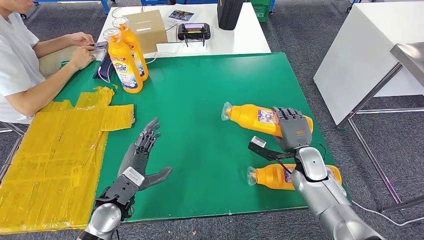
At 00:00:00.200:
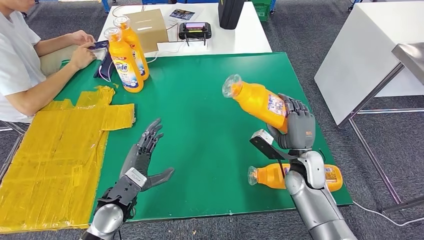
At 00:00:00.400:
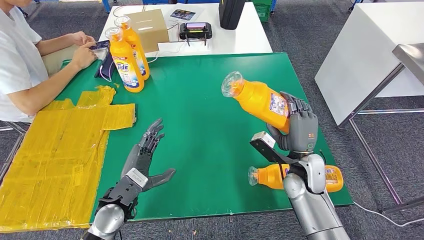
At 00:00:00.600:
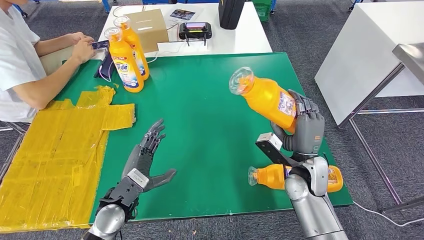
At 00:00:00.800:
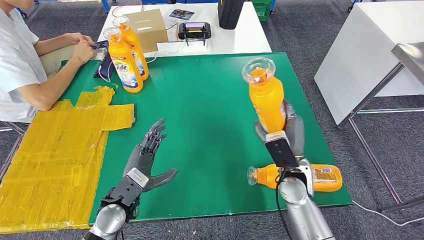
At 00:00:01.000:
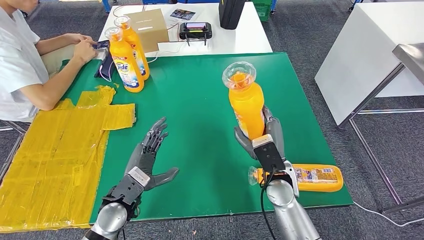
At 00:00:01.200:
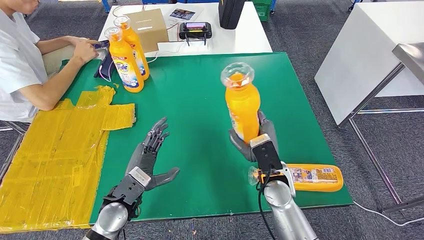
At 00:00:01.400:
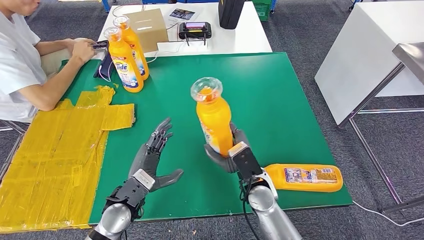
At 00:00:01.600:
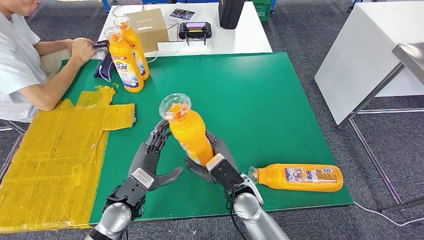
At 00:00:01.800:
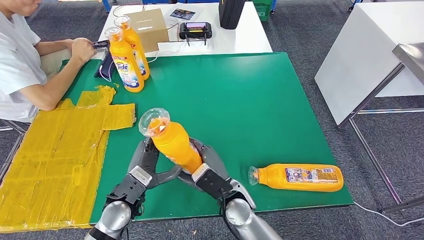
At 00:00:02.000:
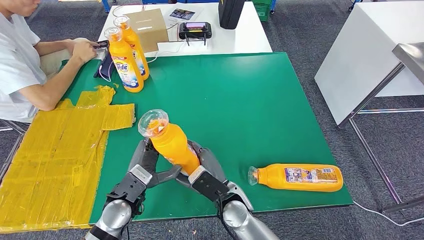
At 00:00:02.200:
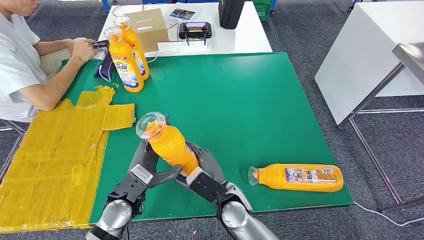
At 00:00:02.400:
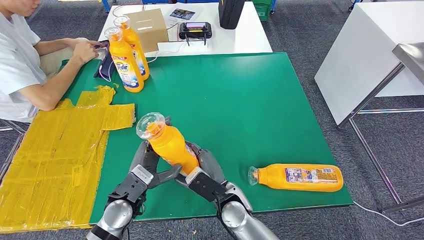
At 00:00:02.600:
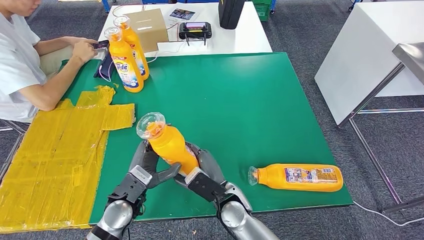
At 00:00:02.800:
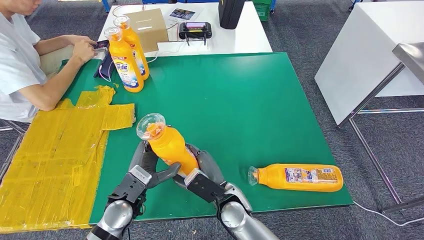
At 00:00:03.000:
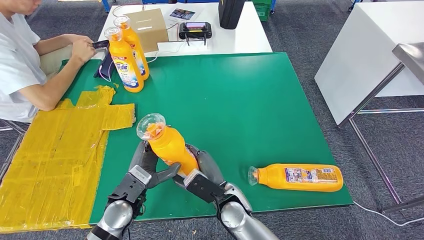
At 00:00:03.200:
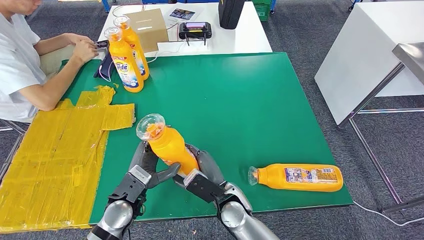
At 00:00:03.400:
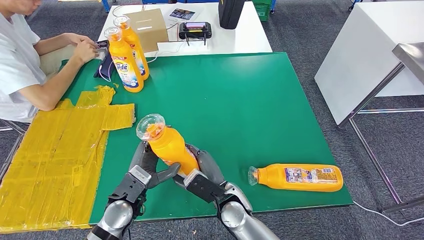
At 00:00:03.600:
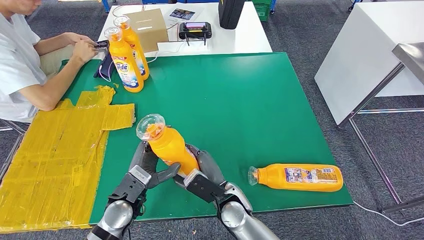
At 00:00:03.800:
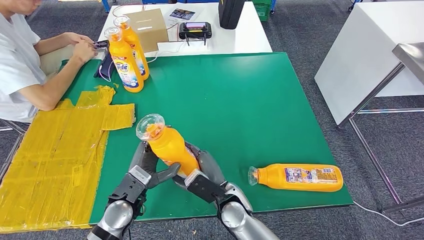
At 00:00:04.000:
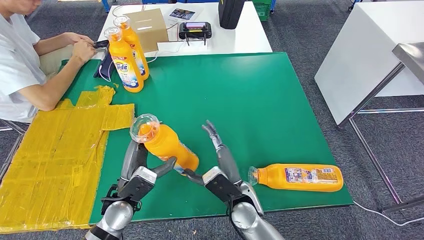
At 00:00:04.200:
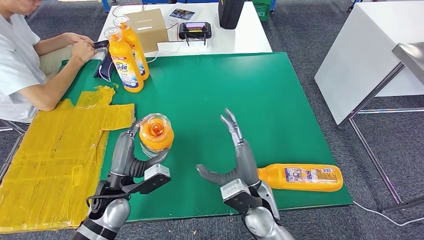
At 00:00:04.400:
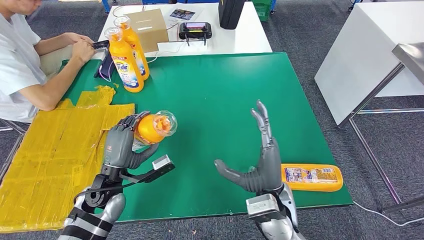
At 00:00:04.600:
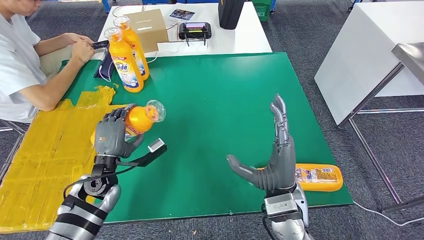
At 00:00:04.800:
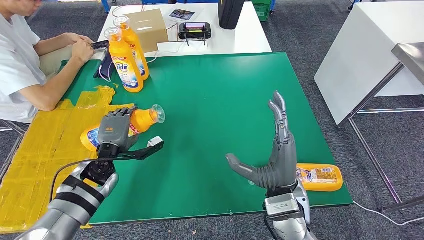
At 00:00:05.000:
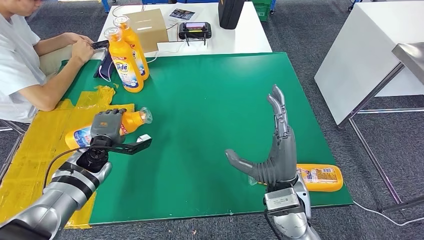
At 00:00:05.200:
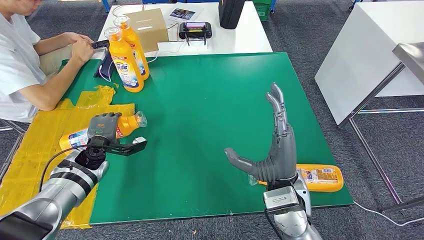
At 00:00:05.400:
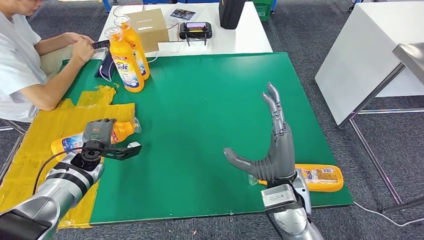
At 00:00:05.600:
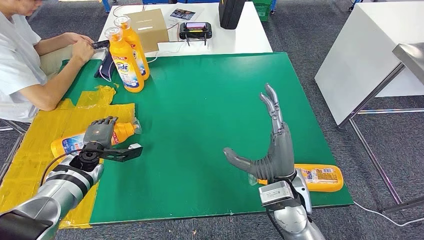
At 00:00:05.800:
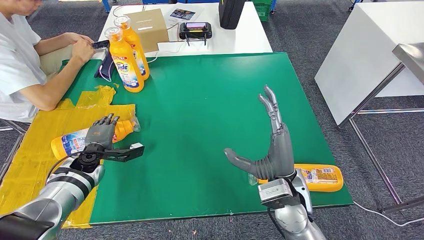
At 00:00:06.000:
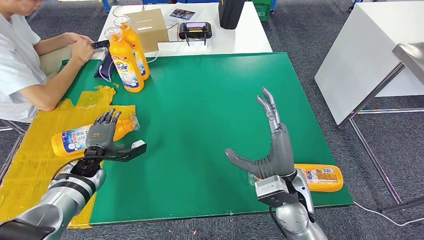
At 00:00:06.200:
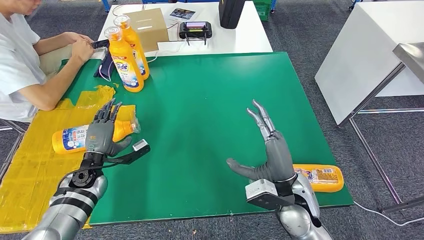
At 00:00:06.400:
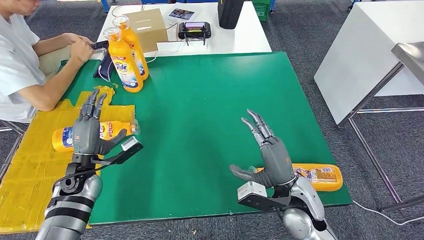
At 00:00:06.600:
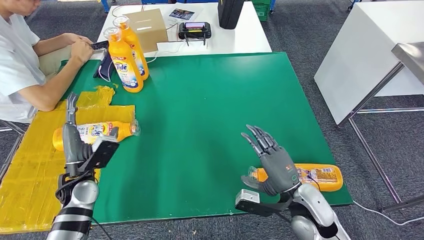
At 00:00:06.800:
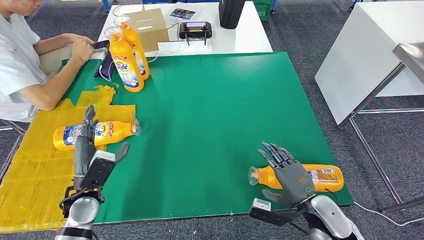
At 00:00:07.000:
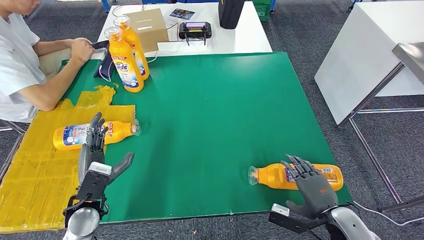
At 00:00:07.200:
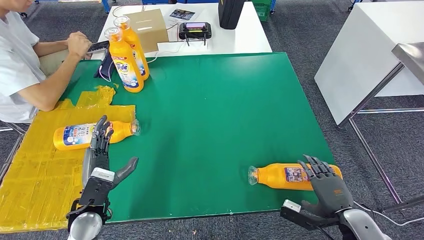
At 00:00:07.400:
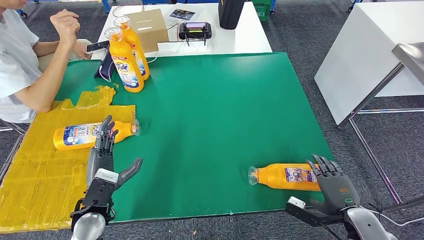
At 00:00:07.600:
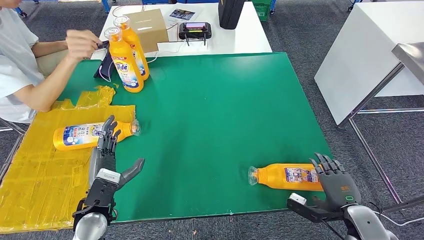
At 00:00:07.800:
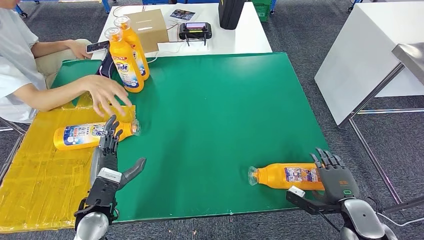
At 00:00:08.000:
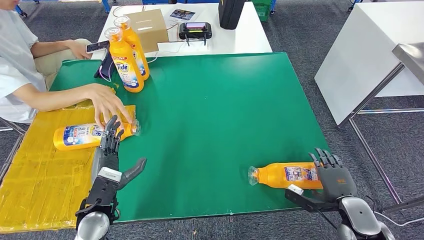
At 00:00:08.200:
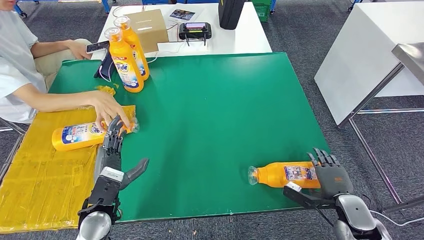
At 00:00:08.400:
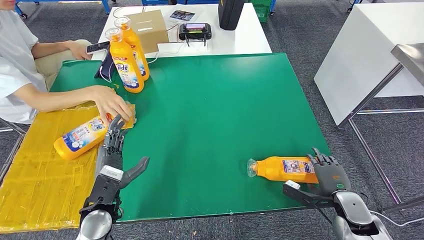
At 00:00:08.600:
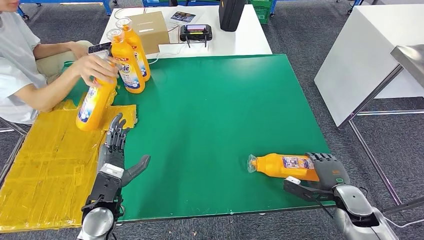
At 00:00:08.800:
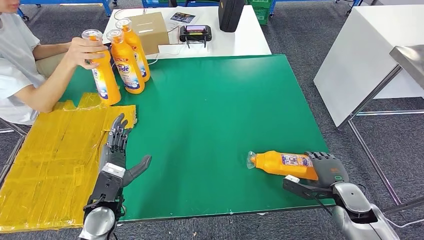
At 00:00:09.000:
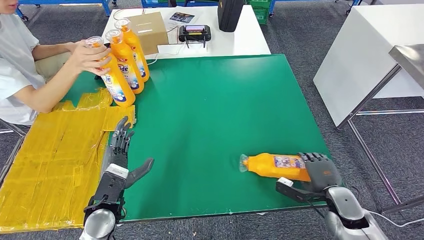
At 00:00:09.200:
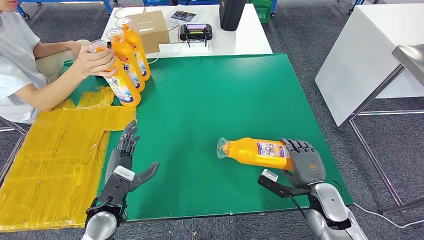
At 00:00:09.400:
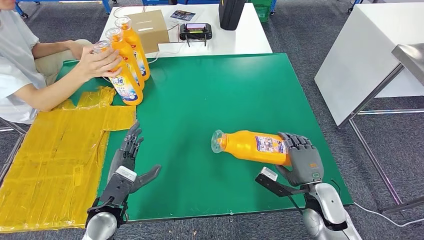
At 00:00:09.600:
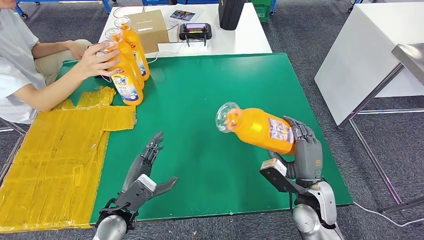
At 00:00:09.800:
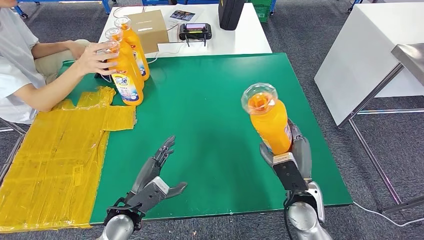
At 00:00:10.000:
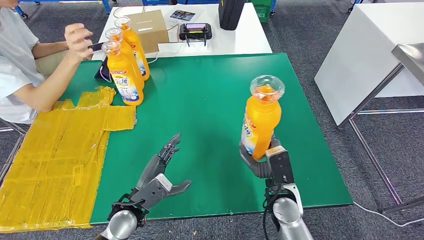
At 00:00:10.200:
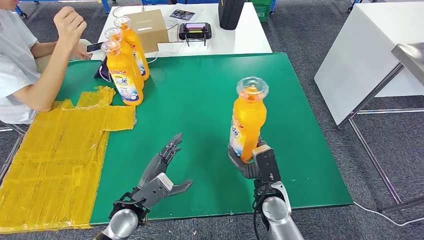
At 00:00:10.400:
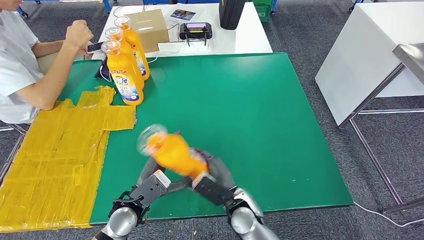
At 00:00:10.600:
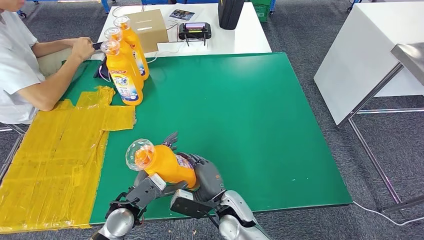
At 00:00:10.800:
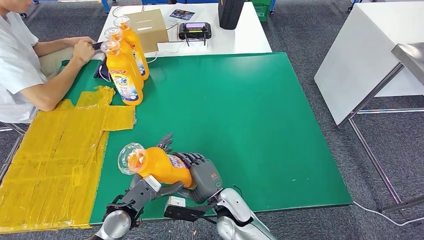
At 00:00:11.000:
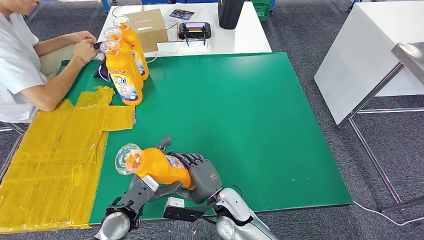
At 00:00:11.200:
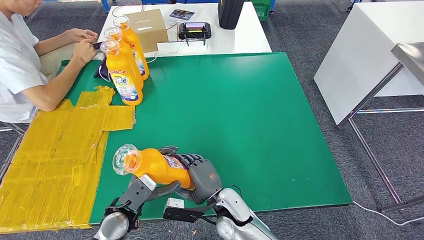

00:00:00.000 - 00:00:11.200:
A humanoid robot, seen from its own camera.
Step, 00:00:01.400 - 00:00:06.400: Flip the fast-moving consumer goods bottle to the front side.
Step, 00:00:08.200 - 00:00:09.800: Pick up the fast-moving consumer goods bottle from the table.
00:00:01.600 - 00:00:03.200: The hands move only a little.
00:00:03.200 - 00:00:04.800: The right hand travels upward and to the right by about 15 cm. Meanwhile the left hand heads forward and to the left, covering approximately 10 cm.
00:00:04.800 - 00:00:06.400: The right hand ends up approximately 5 cm from where it was, while the left hand heads to the left, covering approximately 5 cm.
00:00:08.000 - 00:00:09.600: The right hand goes about 10 cm to the left.

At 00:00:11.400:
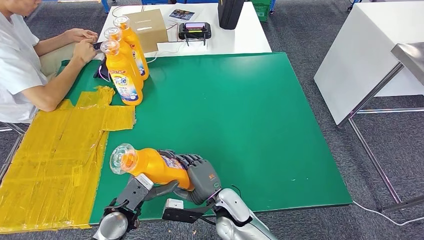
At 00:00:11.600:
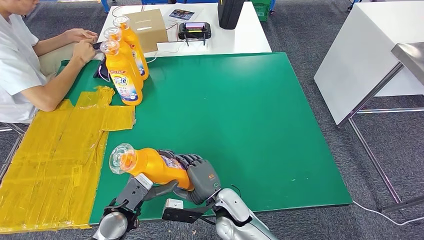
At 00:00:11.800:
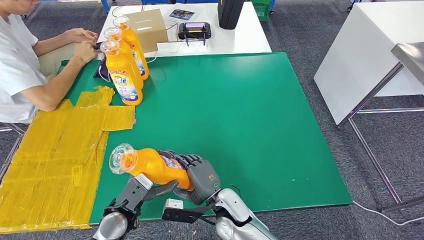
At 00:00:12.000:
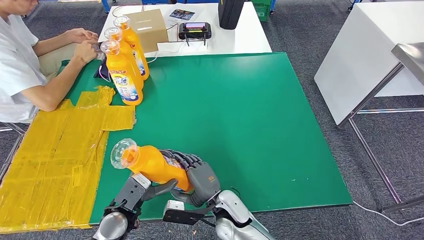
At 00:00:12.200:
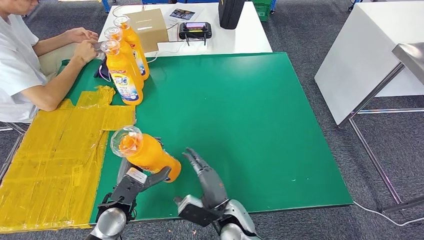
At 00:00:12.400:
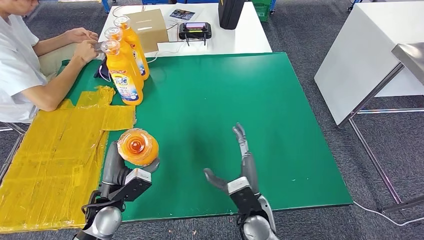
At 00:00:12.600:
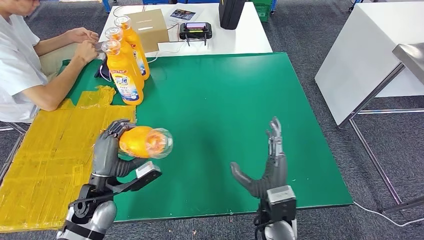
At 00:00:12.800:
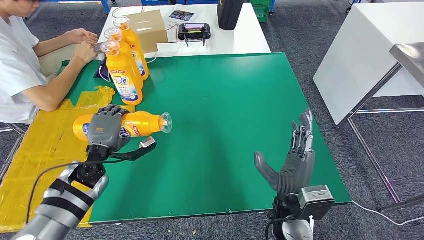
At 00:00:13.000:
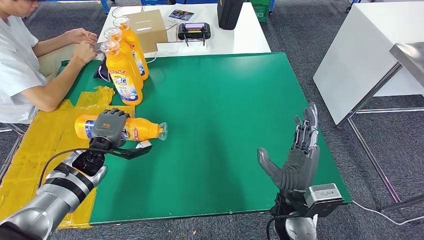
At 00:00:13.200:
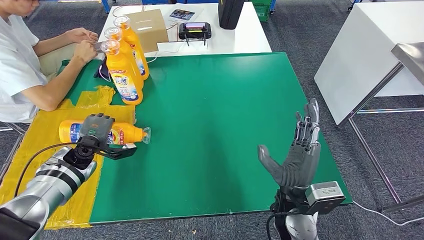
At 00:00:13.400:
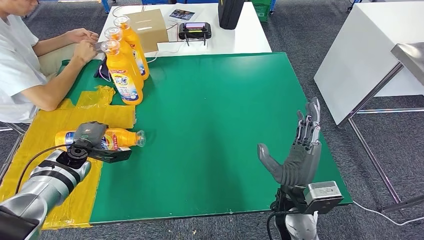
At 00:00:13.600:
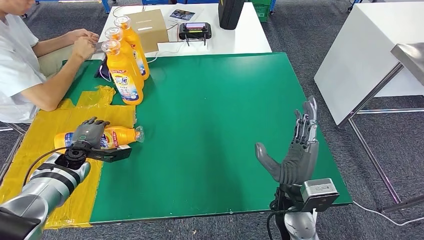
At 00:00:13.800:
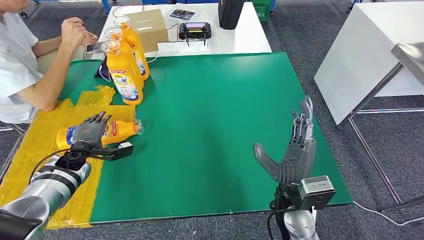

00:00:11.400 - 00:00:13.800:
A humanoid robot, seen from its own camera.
Step, 00:00:11.400 - 00:00:13.800: Flip the fast-moving consumer goods bottle to the front side.
00:00:11.400 - 00:00:12.600: The right hand moves to the right and upward, approximately 10 cm. Meanwhile the left hand goes approximately 5 cm upward.
